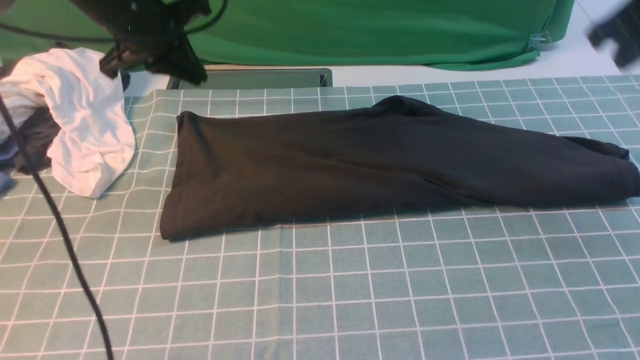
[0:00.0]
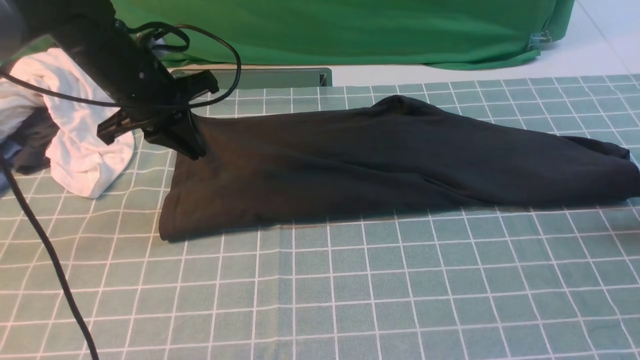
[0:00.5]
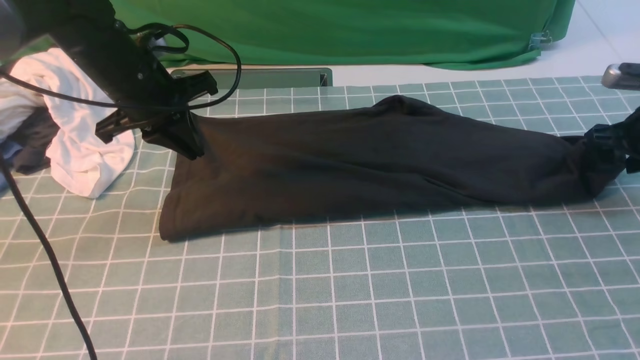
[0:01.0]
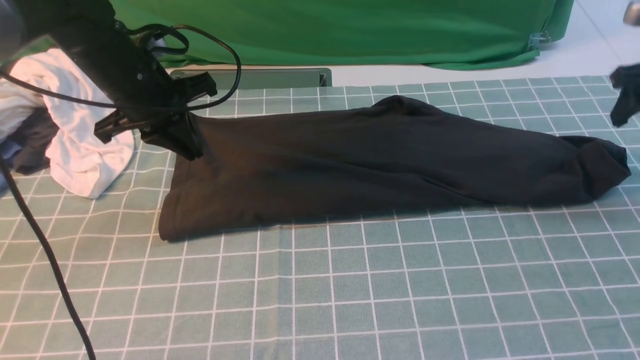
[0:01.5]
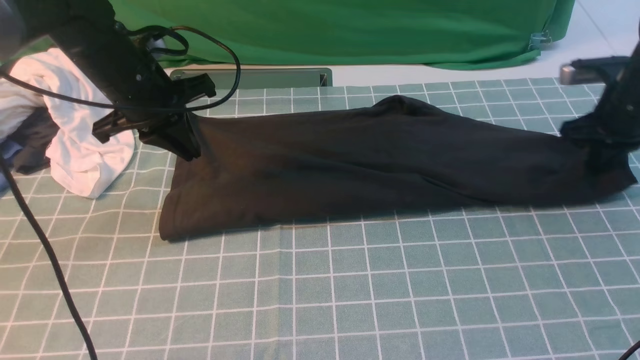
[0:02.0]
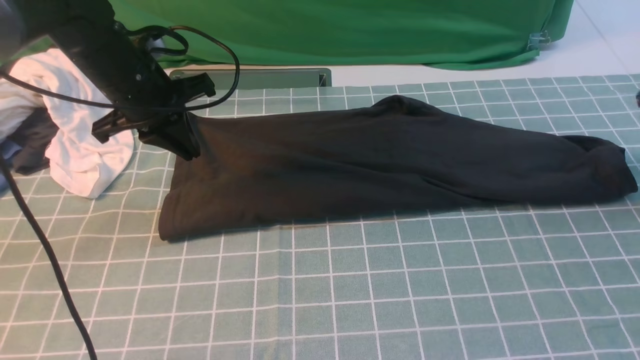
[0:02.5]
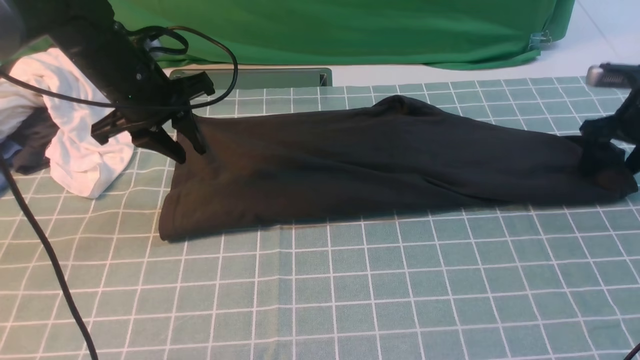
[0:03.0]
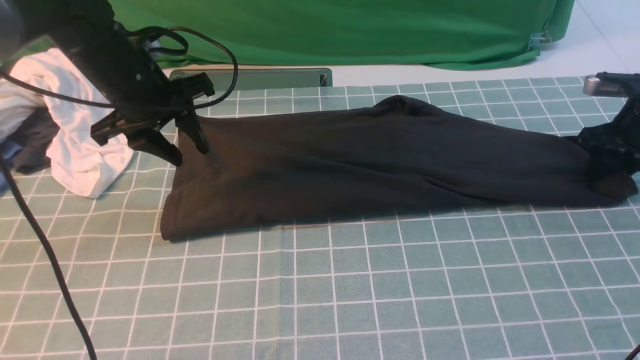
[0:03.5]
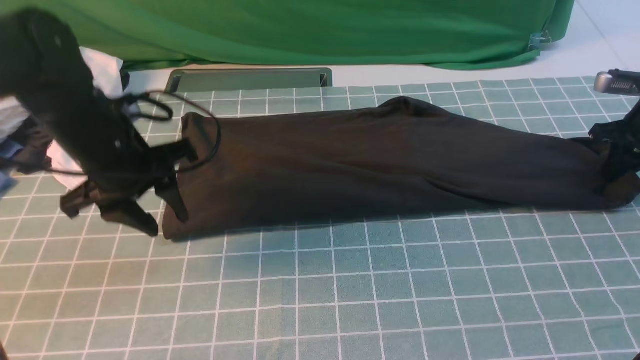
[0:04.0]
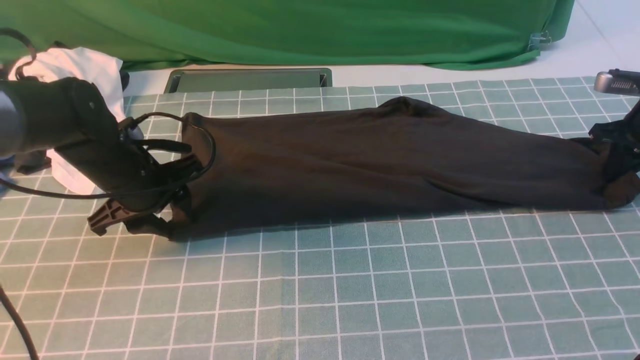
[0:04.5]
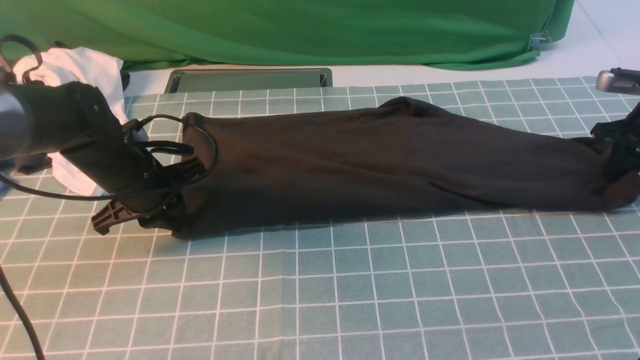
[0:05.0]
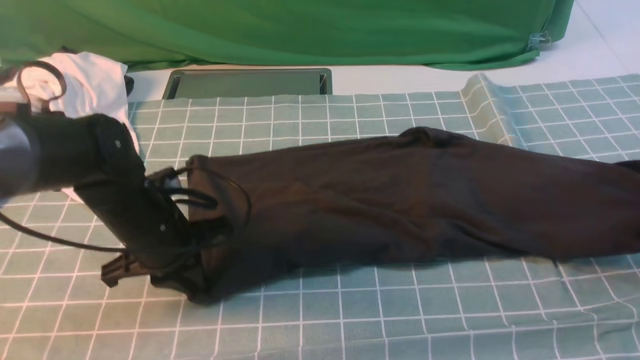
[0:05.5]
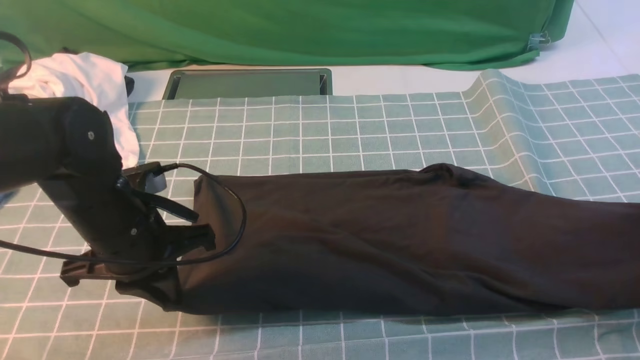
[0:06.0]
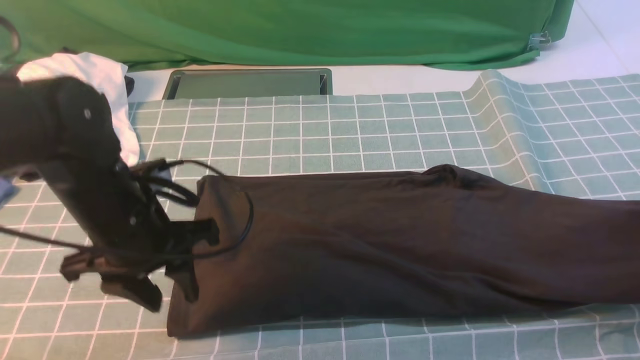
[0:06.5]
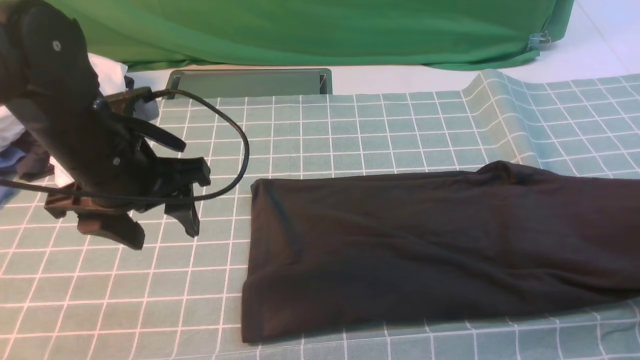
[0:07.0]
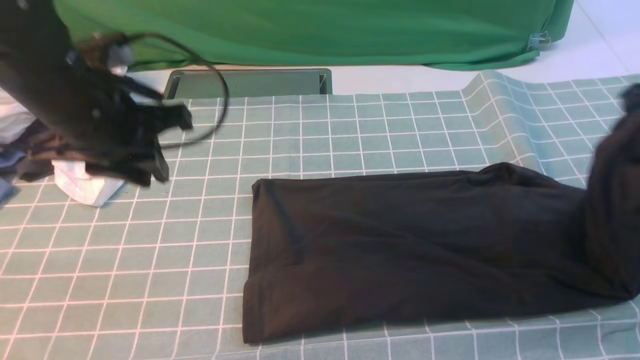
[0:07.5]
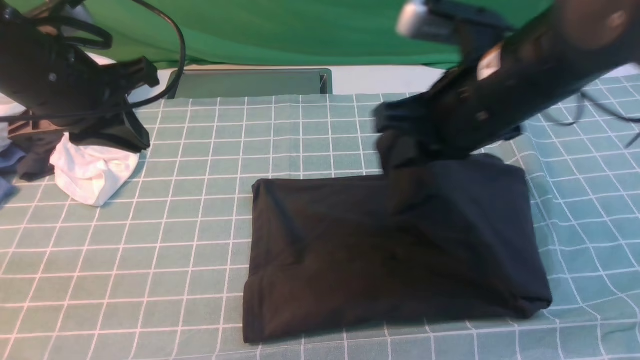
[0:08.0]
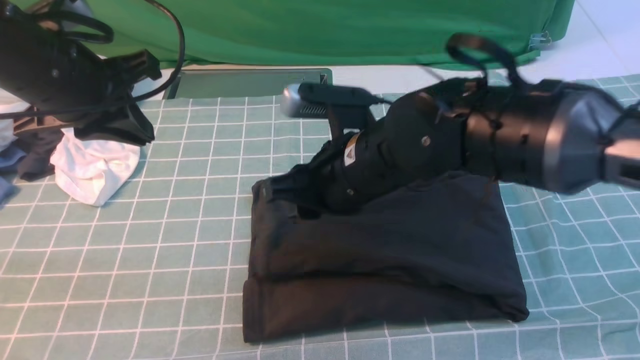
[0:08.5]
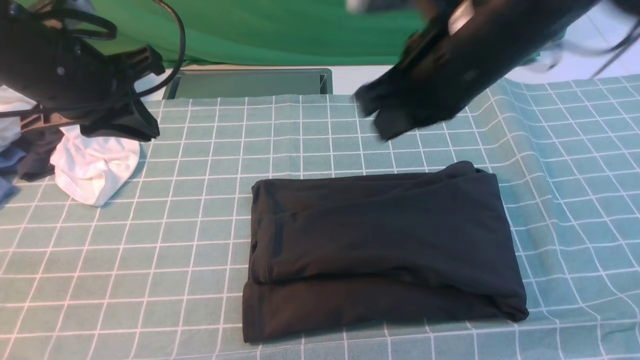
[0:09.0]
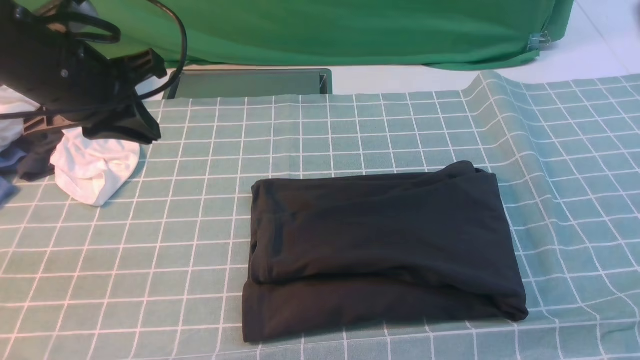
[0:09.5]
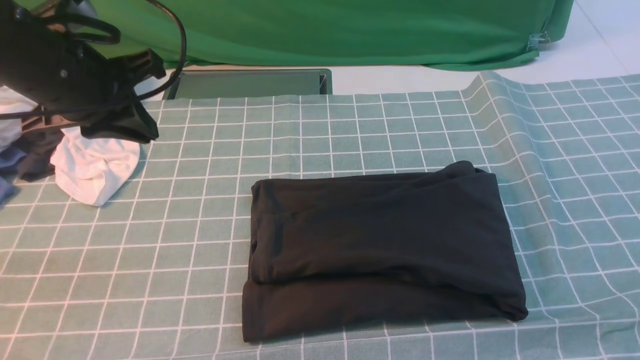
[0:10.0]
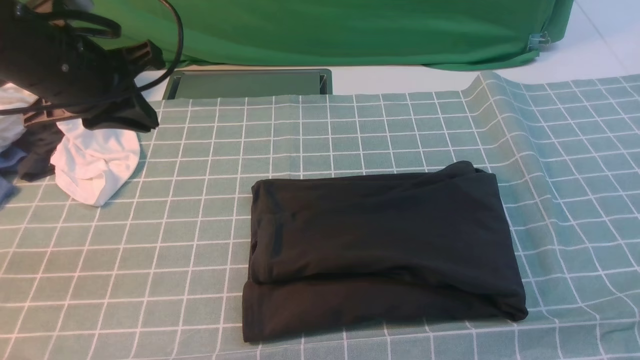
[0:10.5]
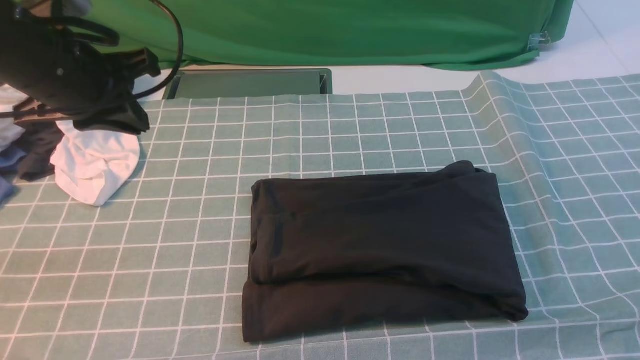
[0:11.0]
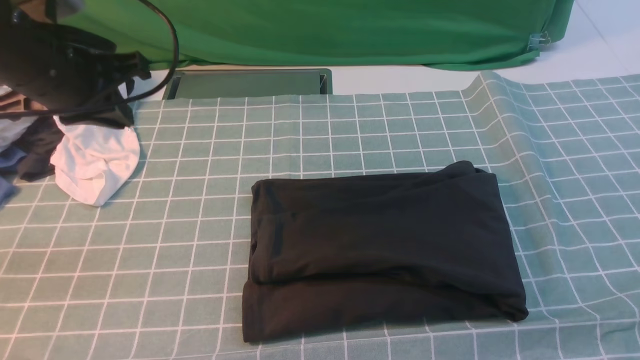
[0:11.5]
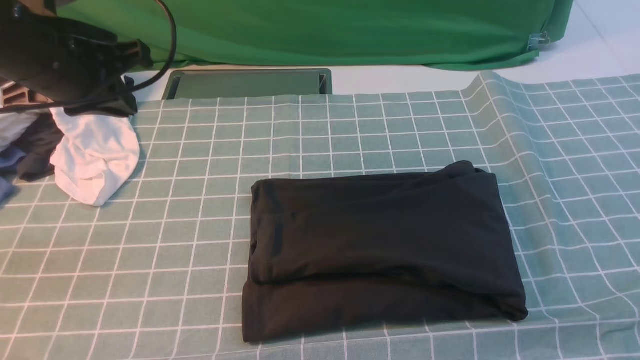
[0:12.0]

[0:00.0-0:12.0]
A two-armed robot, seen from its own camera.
Step, 0:00.0 to 0:05.5: use the right arm to clamp the right edge of the fabric.
Step, 0:06.0 to 0:08.5: use the right arm to drag the right edge of the fabric to the left and folds it over the left edge.
0:00.0 to 0:02.0: The right gripper swings up and down, about 15 cm each way, with 2 reversals, and opens, then closes again. Meanwhile the left gripper shifts by about 5 cm.
0:02.0 to 0:04.0: The left gripper is displaced backward by approximately 5 cm, and opens up, while the right gripper ends up roughly 5 cm from where it was, and opens and closes again.
0:04.0 to 0:06.0: The left gripper heads backward, covering roughly 10 cm, and closes up, while the right gripper shifts roughly 20 cm backward and upward.
0:06.0 to 0:08.0: The left gripper moves upward and forward, approximately 15 cm, and opens, then closes once more. The right gripper travels to the left by roughly 30 cm.
0:08.0 to 0:10.0: The right gripper goes about 35 cm backward and to the right, and opens, then closes again.

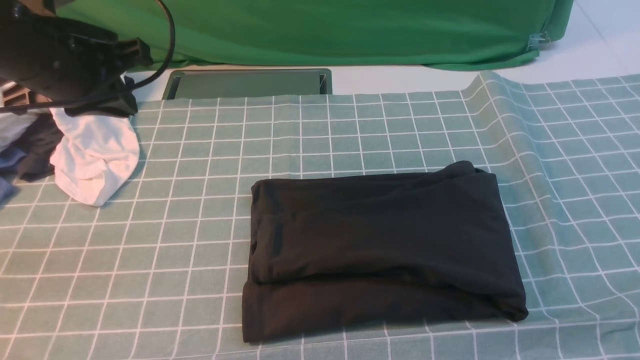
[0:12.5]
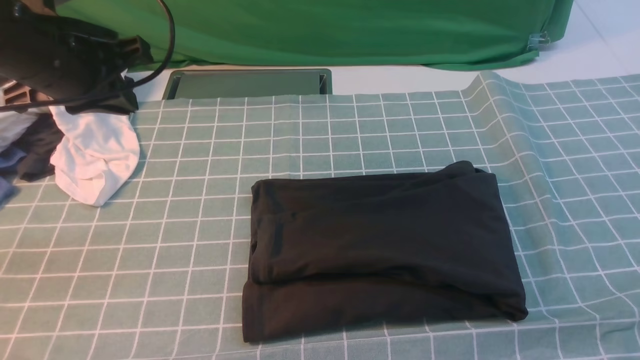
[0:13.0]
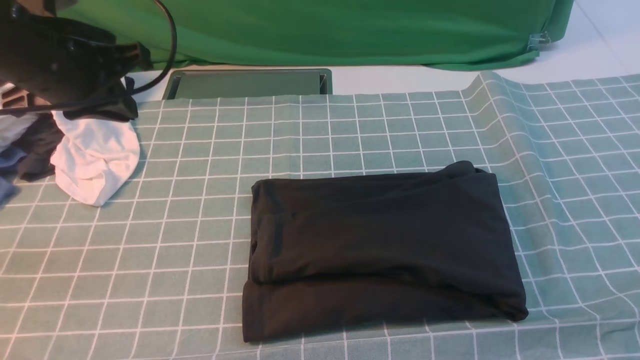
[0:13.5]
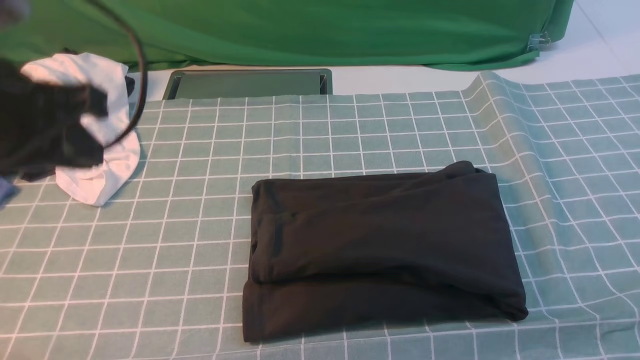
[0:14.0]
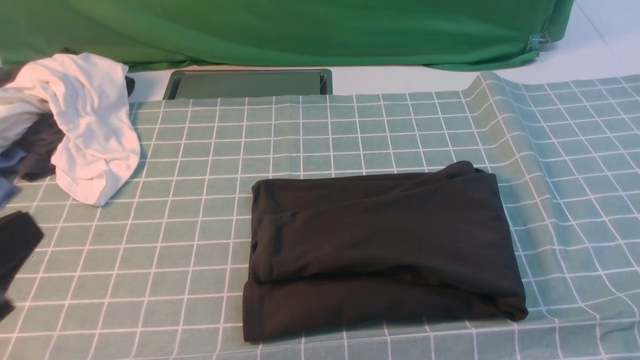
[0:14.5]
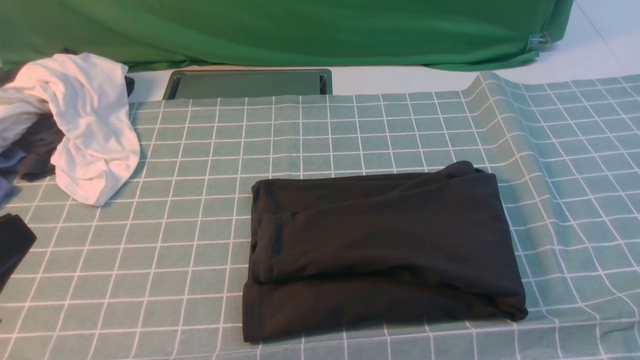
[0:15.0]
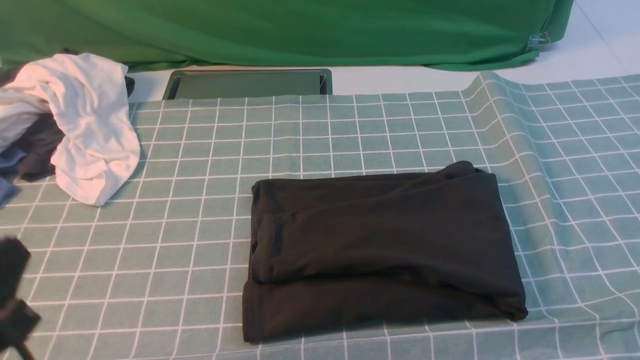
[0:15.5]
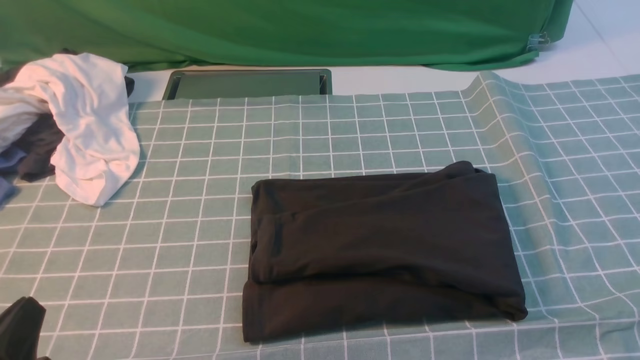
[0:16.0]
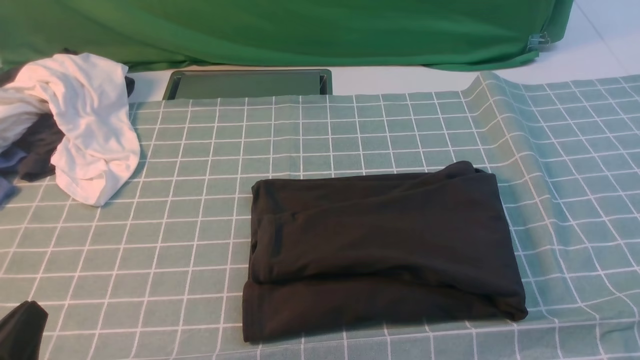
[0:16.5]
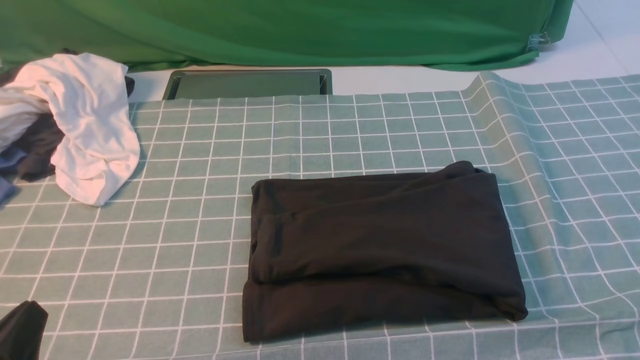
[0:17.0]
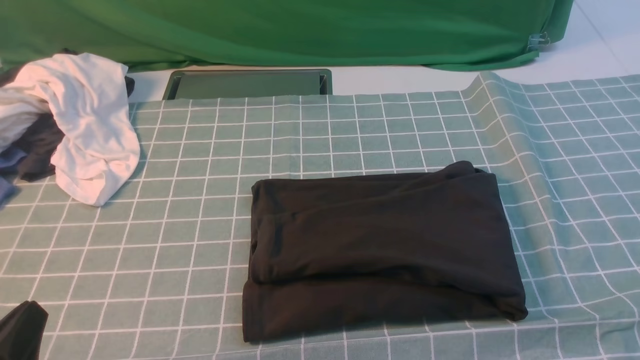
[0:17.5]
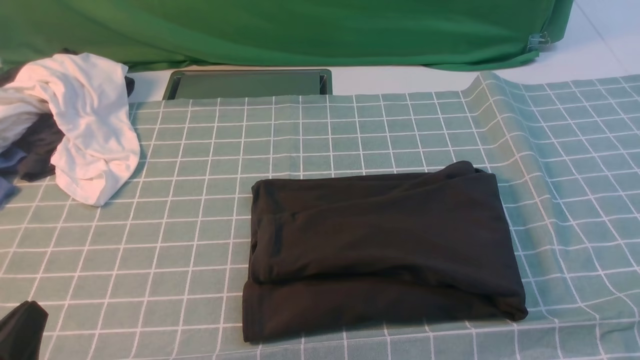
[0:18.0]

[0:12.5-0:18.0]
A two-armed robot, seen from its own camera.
0:12.5 to 0:14.5: The left gripper is displaced backward by some 25 cm.
0:14.5 to 0:16.0: The left gripper travels downward by about 15 cm.
0:16.0 to 0:18.0: Both grippers stay put.

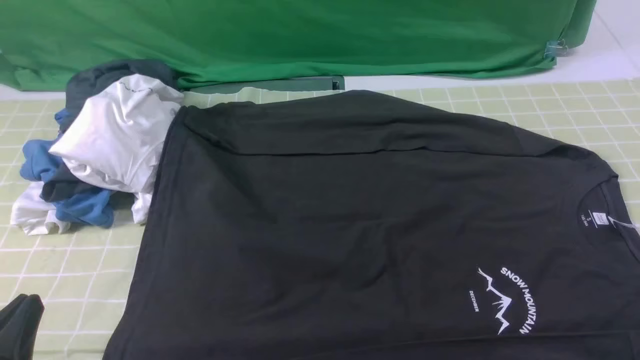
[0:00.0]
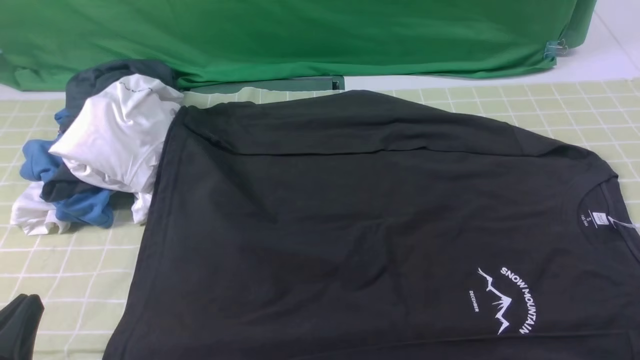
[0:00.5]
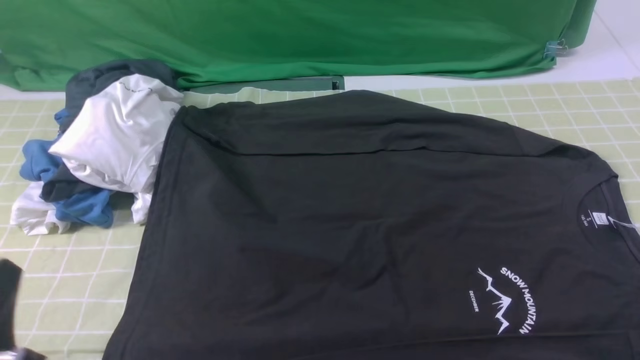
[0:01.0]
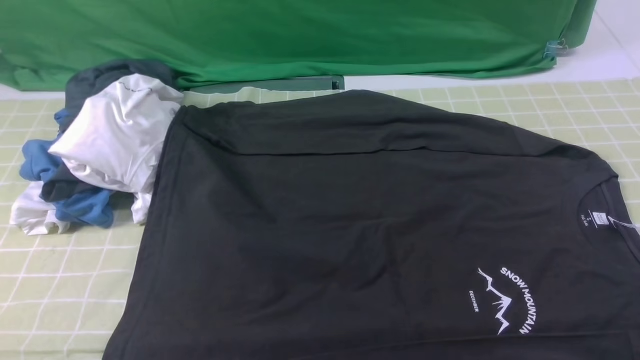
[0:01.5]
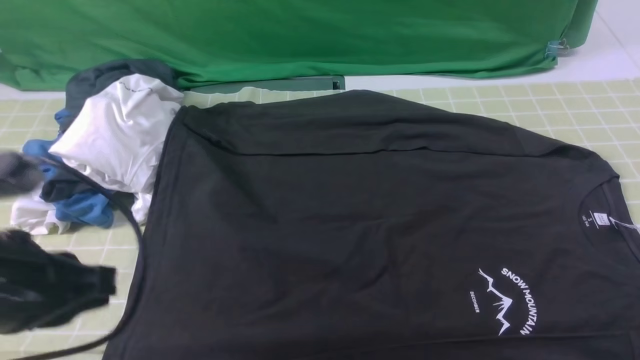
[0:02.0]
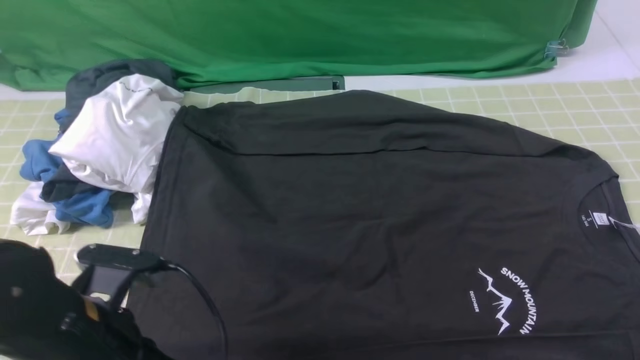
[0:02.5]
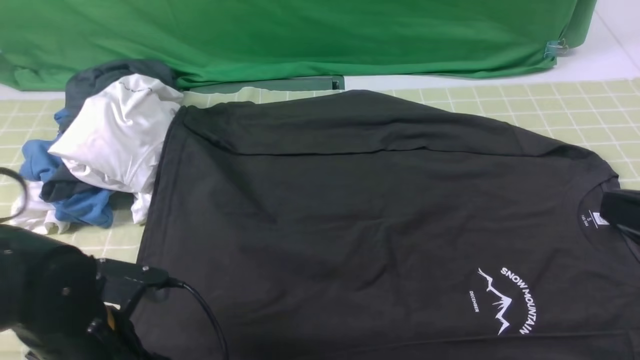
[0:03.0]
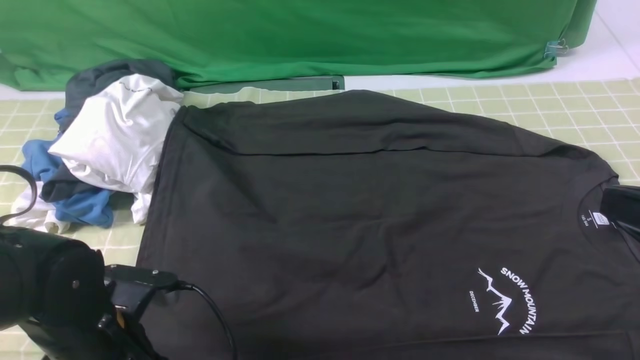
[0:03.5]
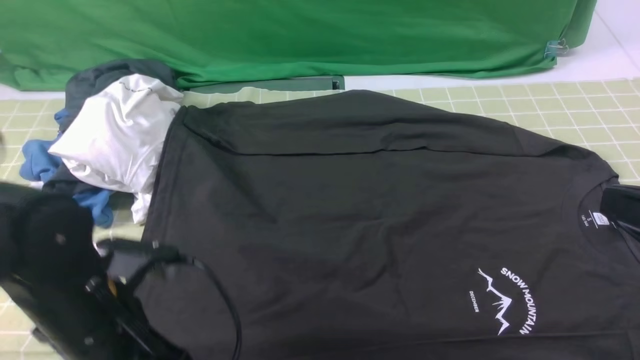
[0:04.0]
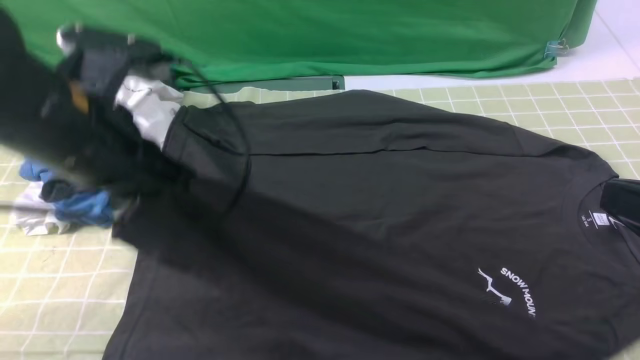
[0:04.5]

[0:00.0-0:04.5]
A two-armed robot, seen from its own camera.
Step, 0:00.0 to 0:03.5: use the left arm to clamp the cuff closest to it.
0:00.0 to 0:02.0: The left gripper is displaced forward and upward by about 10 cm.
0:02.0 to 0:04.5: The left gripper is displaced forward and to the right by some 10 cm, goes downward and returns, approximately 10 cm each way, and opens, then closes again; the right gripper heads forward, to the left and upward, covering some 10 cm.
